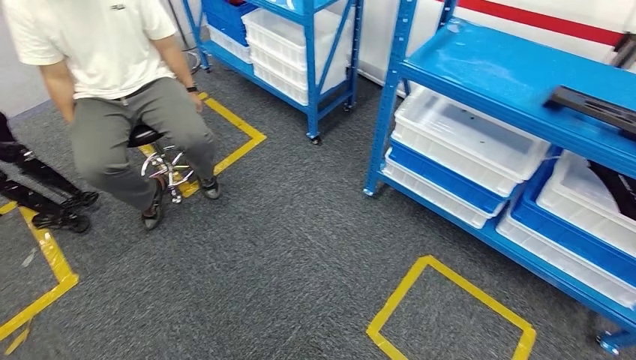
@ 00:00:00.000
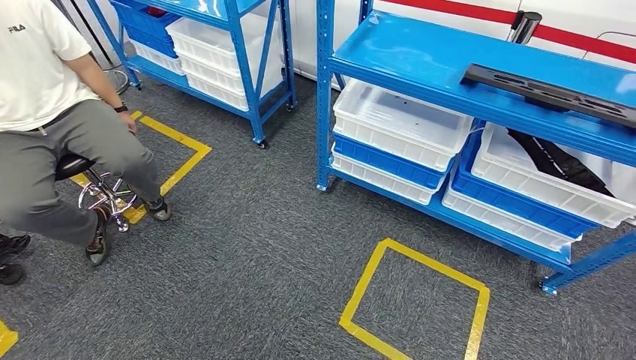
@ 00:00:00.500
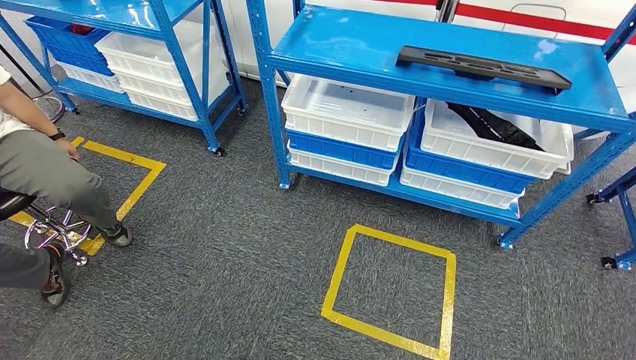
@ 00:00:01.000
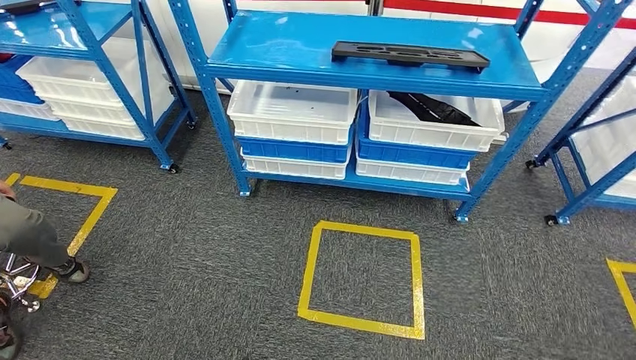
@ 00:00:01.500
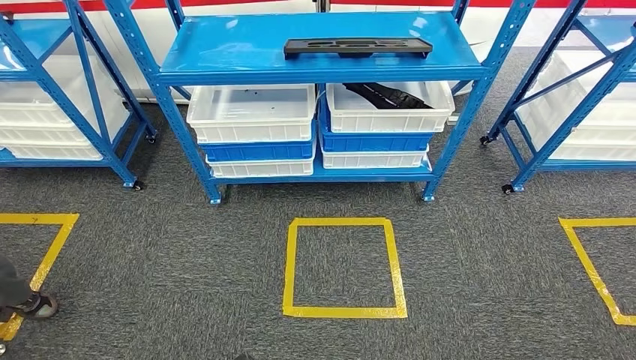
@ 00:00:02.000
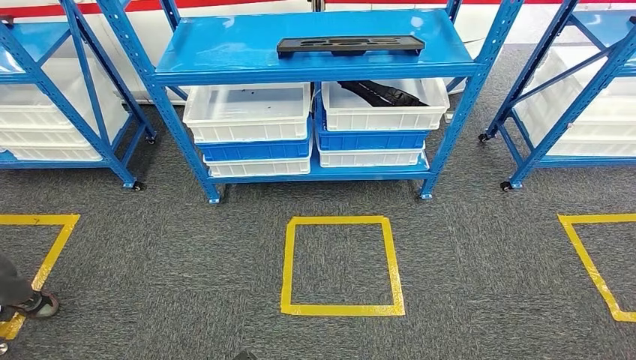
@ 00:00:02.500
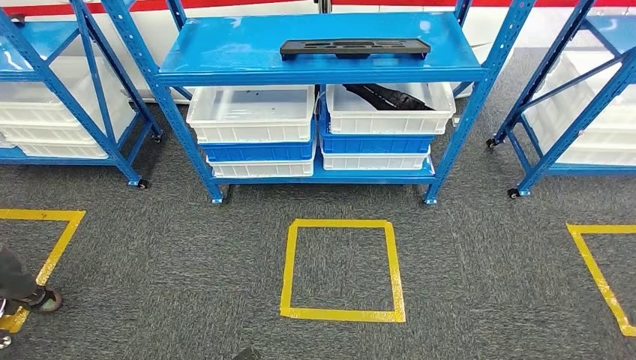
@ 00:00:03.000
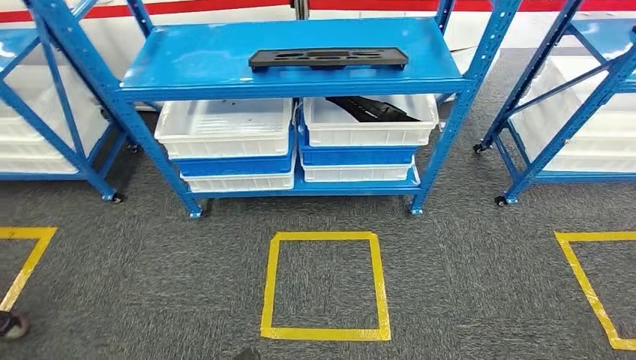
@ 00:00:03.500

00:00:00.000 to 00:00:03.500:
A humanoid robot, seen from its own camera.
Step, 00:00:00.000 to 00:00:03.500: Move to the initial position of the shelf.
